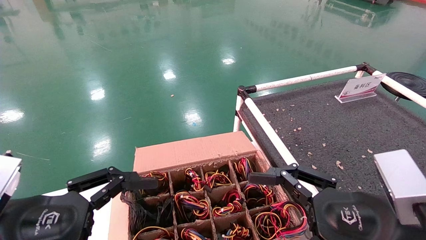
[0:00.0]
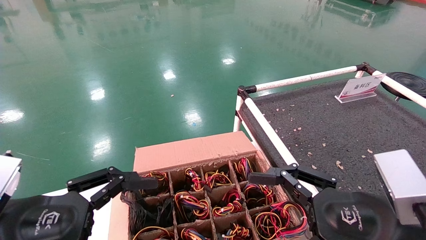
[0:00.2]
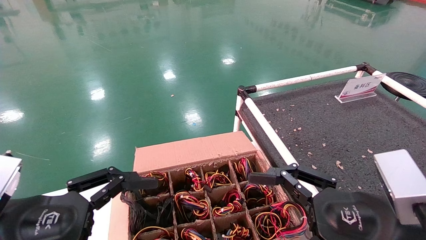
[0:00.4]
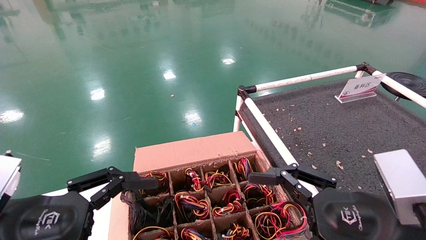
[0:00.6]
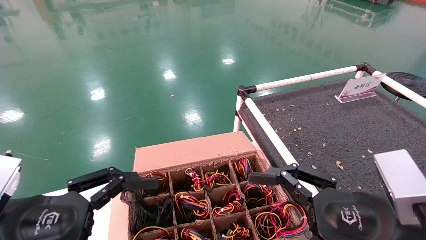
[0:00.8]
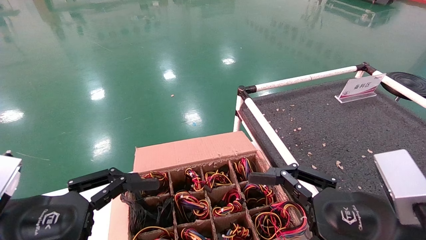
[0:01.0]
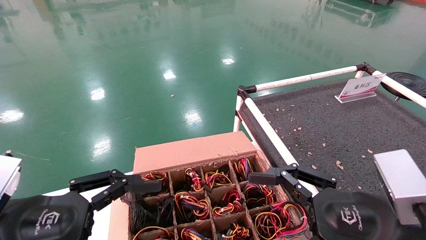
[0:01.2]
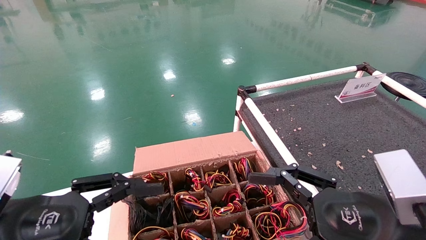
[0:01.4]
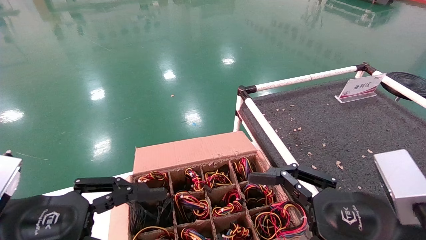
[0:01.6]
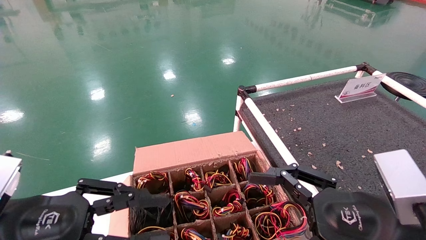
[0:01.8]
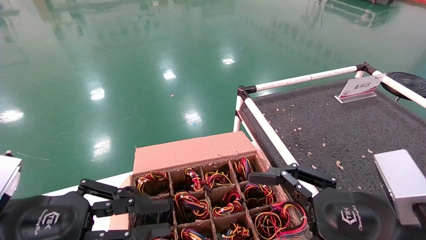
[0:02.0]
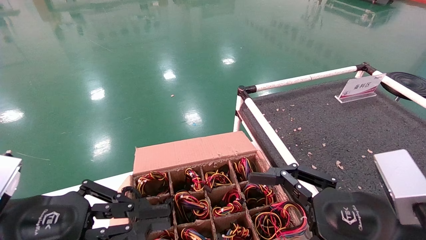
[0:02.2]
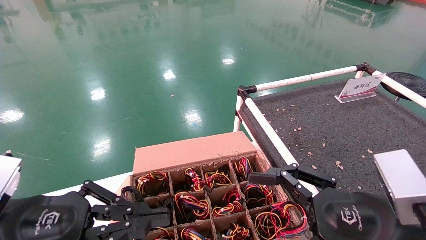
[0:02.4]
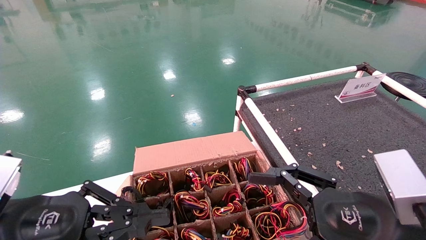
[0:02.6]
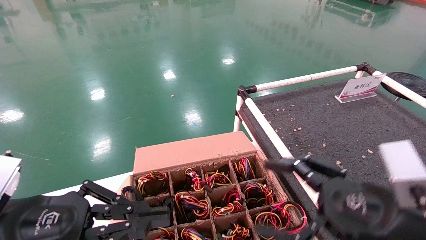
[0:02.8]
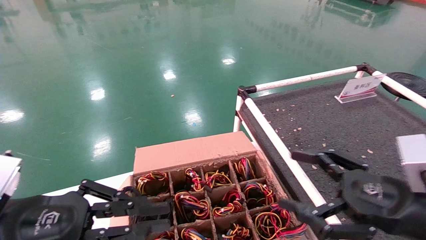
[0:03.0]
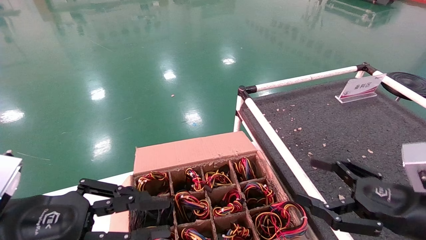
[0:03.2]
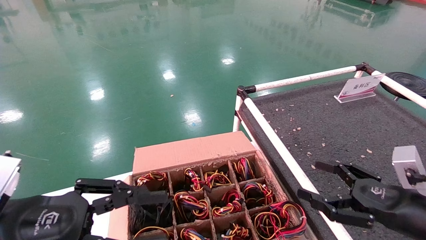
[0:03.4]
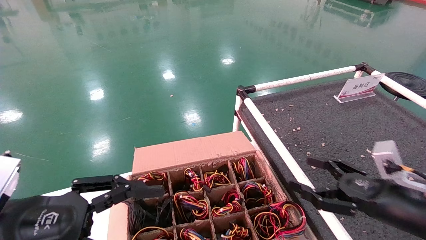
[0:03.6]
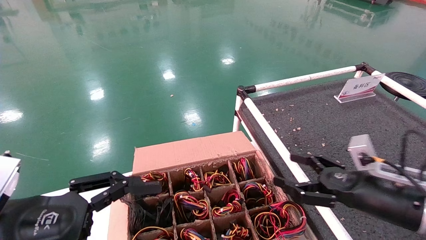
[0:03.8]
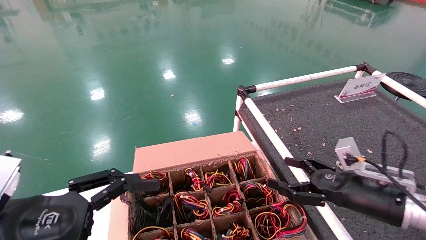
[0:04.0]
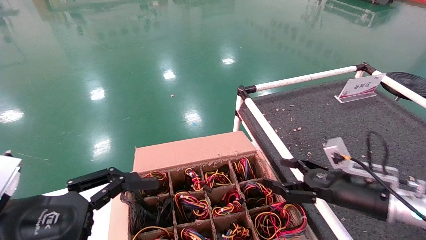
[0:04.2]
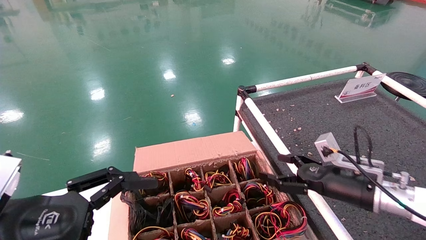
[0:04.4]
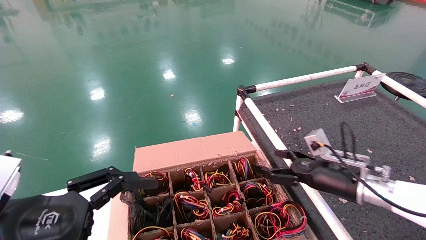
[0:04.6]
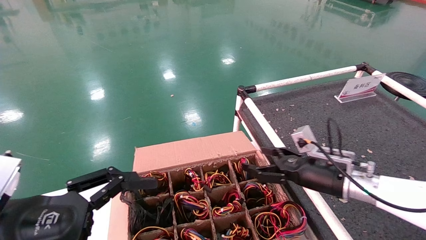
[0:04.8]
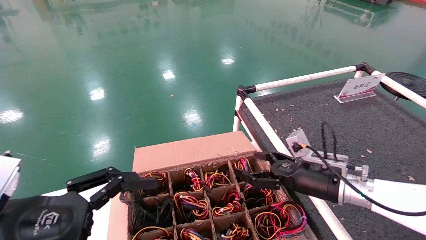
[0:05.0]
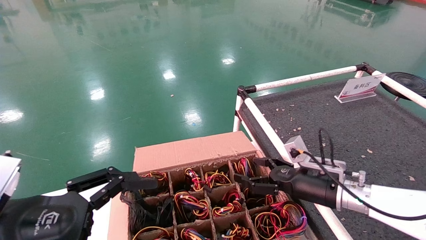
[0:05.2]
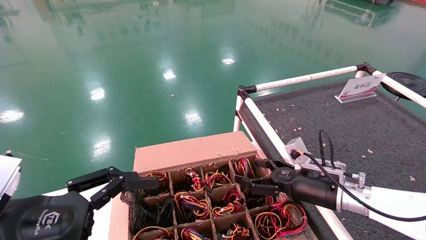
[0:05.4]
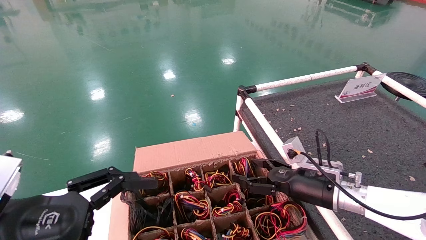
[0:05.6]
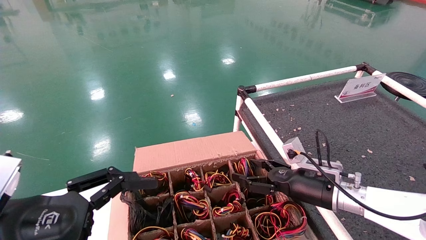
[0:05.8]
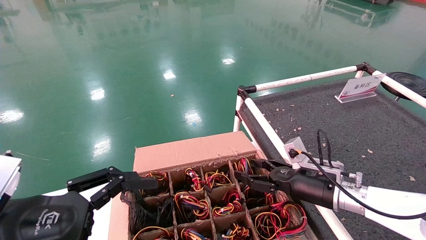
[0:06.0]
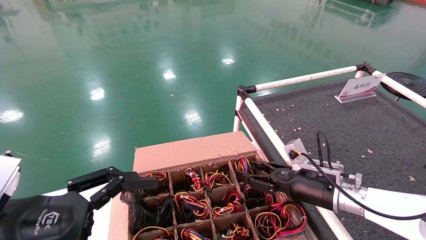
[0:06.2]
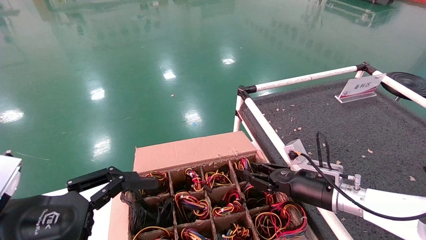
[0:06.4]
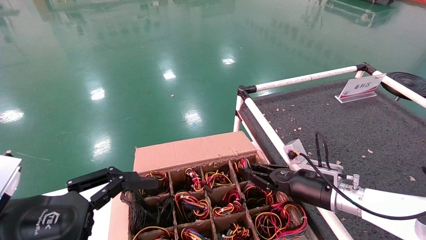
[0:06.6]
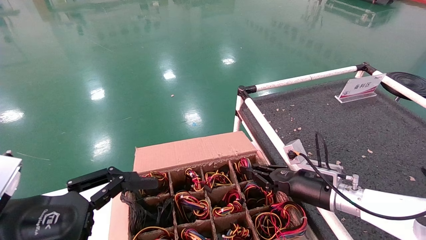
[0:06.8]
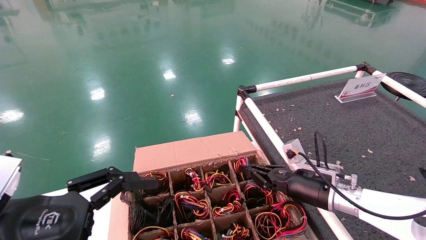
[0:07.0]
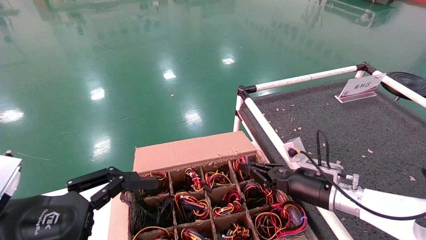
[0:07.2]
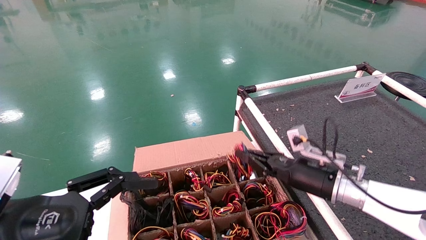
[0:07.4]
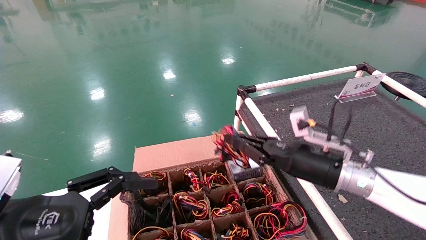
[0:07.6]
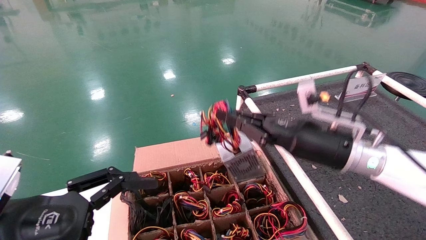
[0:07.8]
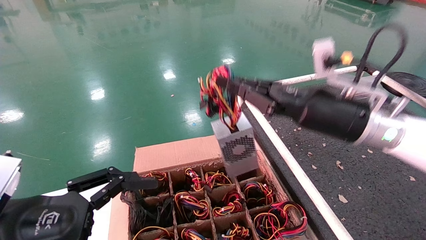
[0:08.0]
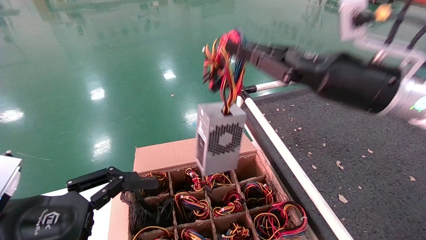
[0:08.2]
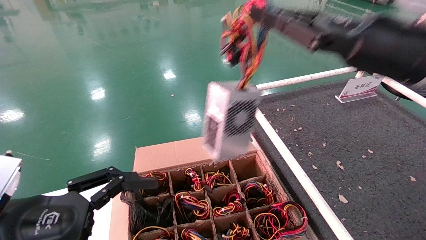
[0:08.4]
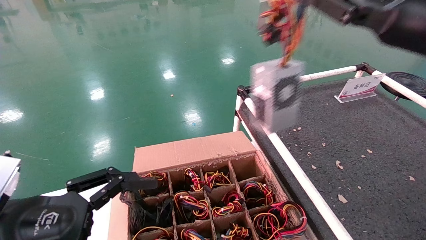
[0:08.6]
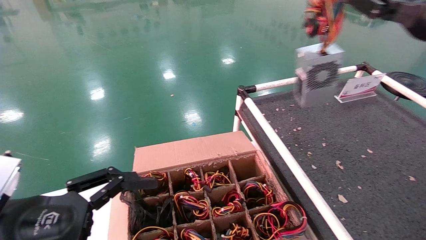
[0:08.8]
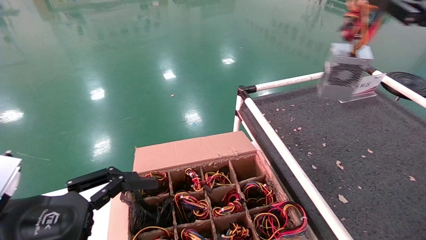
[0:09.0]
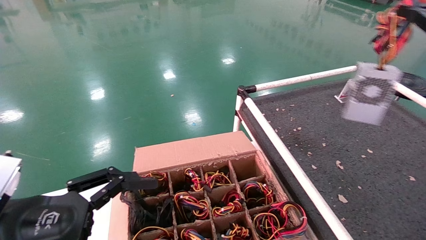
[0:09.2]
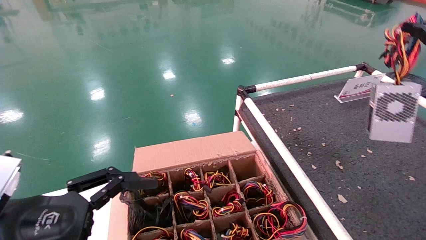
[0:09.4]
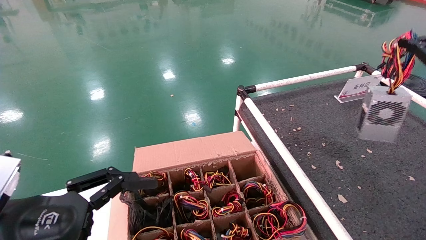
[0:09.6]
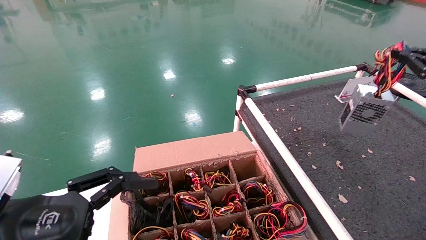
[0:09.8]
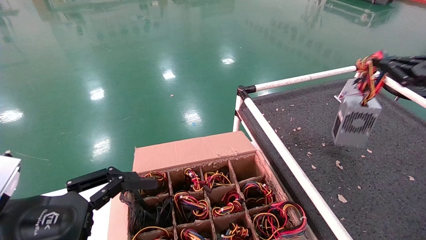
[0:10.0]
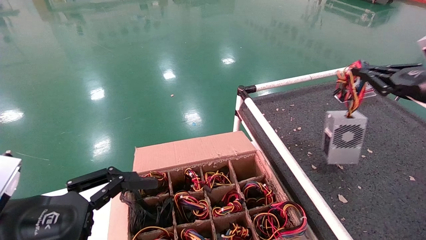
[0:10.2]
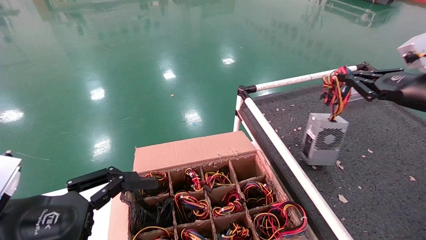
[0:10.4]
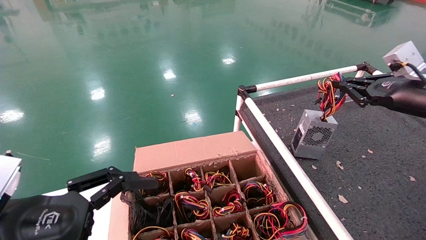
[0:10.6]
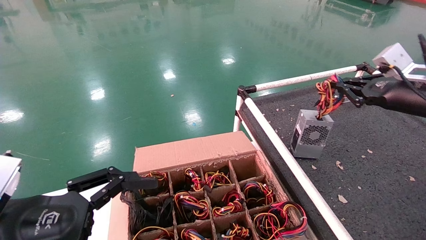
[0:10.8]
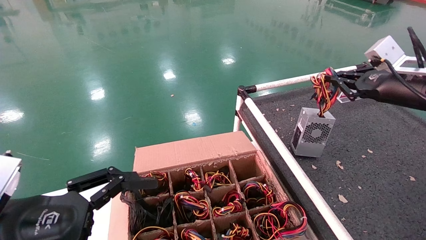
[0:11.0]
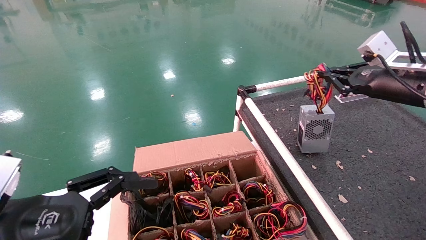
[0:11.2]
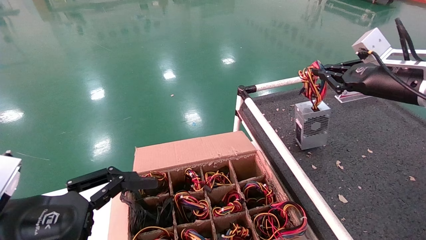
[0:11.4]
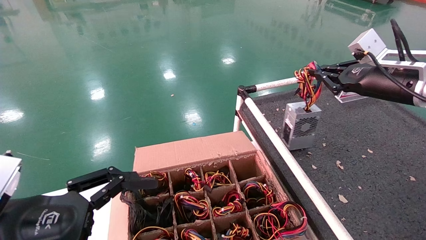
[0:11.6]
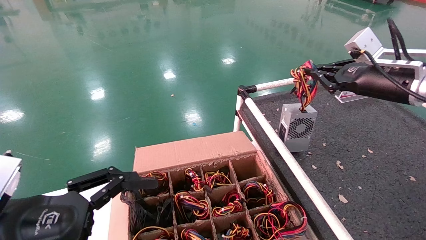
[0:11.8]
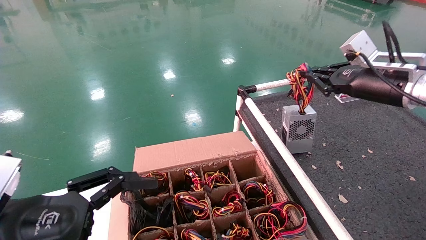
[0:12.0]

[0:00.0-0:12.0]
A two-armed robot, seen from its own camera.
Step, 0:03.0 to 0:07.0: Grab and lift the power supply from the large box.
0:00.0 to 0:01.6: The left gripper closes up.
0:01.6 to 0:03.0: The left gripper closes its fingers, while the right gripper goes some 5 cm to the right.
0:03.0 to 0:04.4: The right gripper travels forward by roughly 15 cm. The left gripper opens its fingers.
0:04.4 to 0:06.0: The right gripper is displaced to the left by some 5 cm.
0:06.0 to 0:07.6: The right gripper goes approximately 10 cm upward, and closes.
0:07.6 to 0:09.0: The right gripper goes roughly 30 cm upward and to the right.
0:09.0 to 0:10.4: The right gripper shifts about 10 cm downward.
0:10.4 to 0:12.0: The right gripper heads to the left, covering approximately 5 cm.

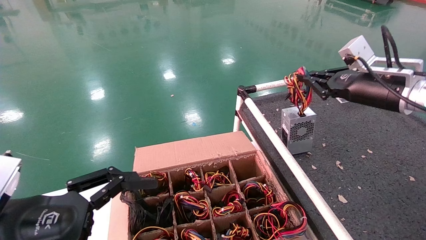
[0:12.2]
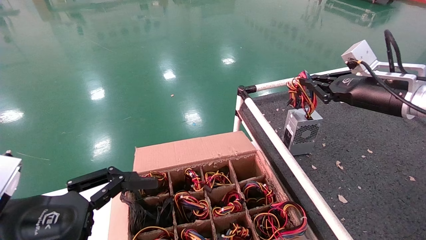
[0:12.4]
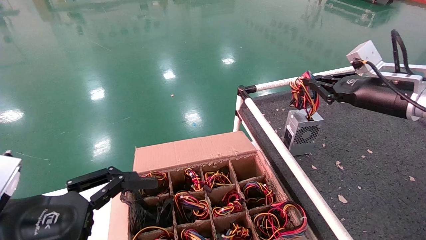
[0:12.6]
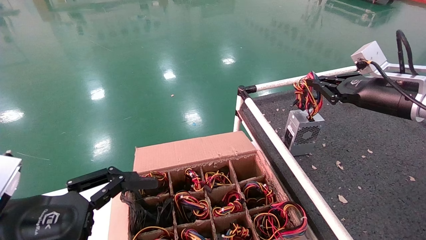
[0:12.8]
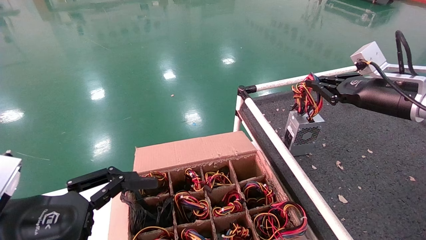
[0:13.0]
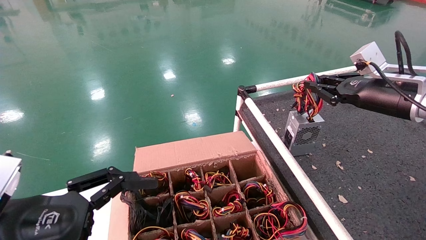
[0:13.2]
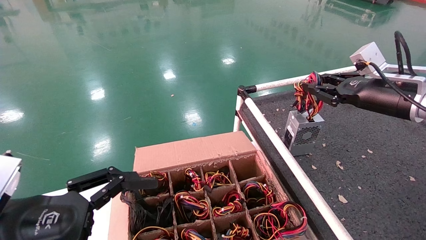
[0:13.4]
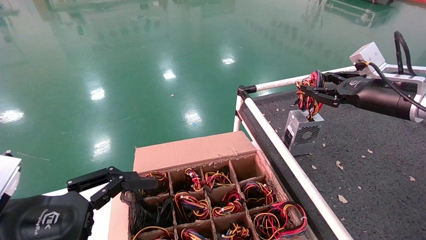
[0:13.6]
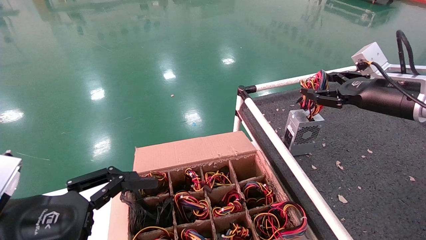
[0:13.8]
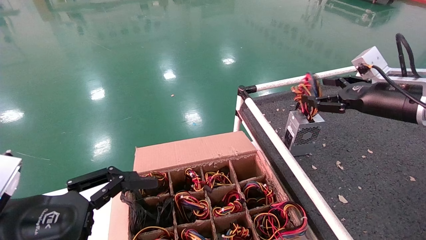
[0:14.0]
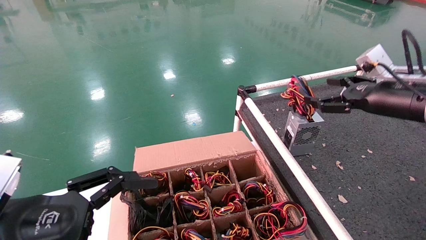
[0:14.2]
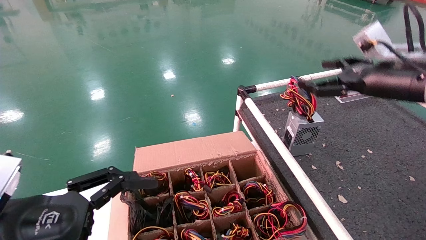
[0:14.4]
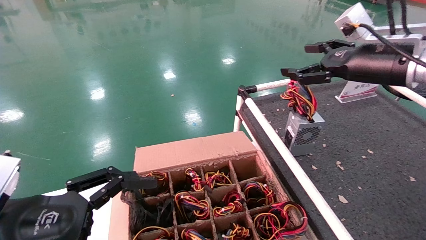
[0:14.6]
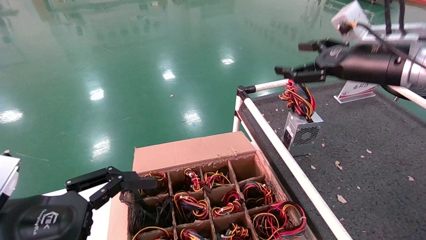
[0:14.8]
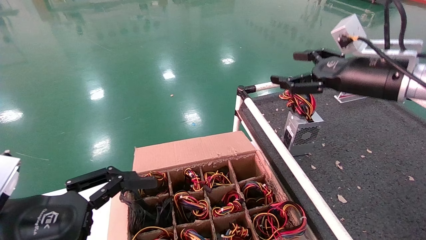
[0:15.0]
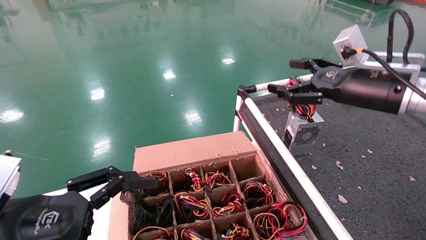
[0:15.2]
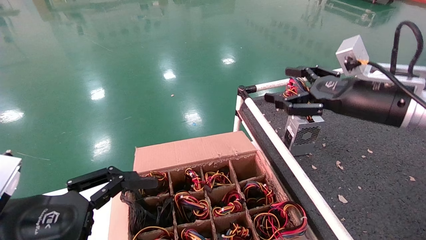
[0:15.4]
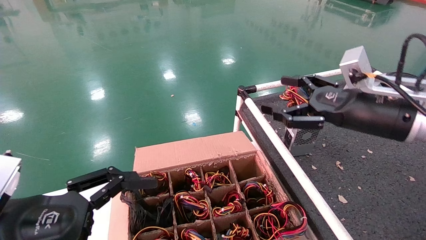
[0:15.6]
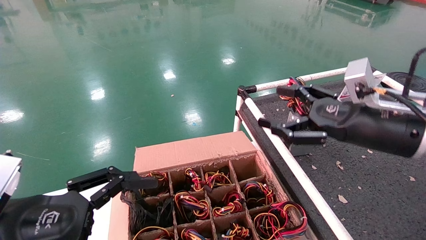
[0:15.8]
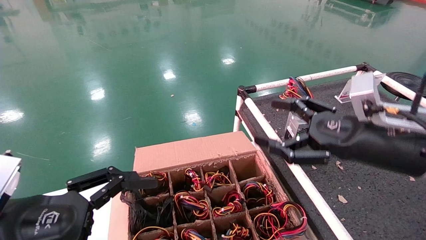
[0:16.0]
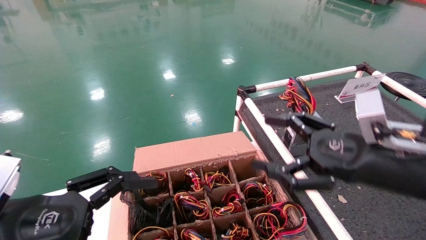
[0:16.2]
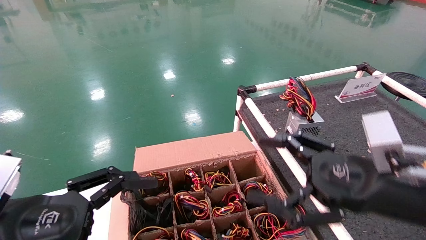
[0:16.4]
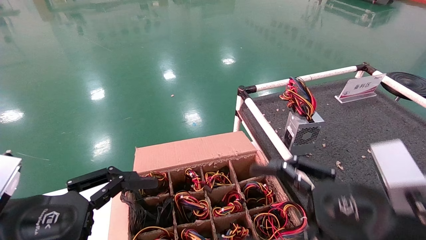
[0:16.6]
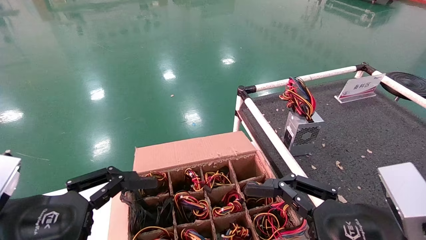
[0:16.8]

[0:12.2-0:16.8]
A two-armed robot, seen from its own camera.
0:12.2 to 0:13.8: The right gripper opens its fingers.
0:13.8 to 0:15.2: The right gripper shifts roughly 5 cm to the left, and opens its fingers.
0:15.2 to 0:16.8: The right gripper heads backward and downward, covering about 20 cm.
